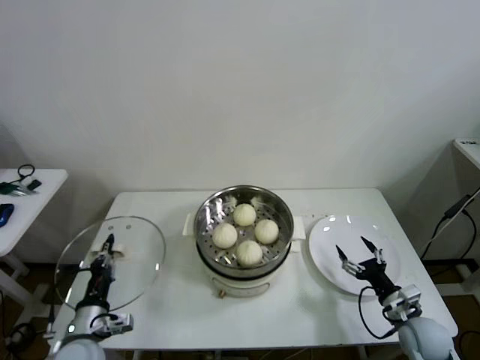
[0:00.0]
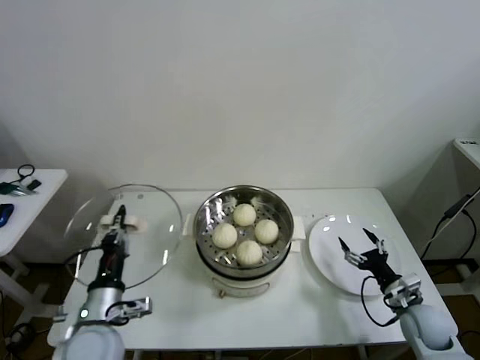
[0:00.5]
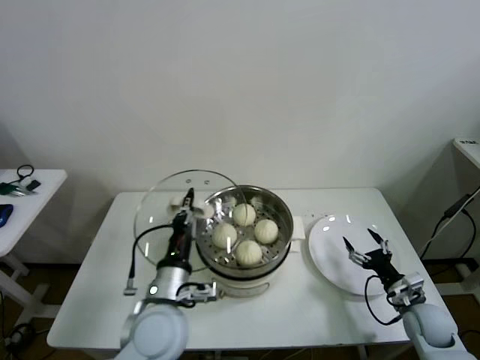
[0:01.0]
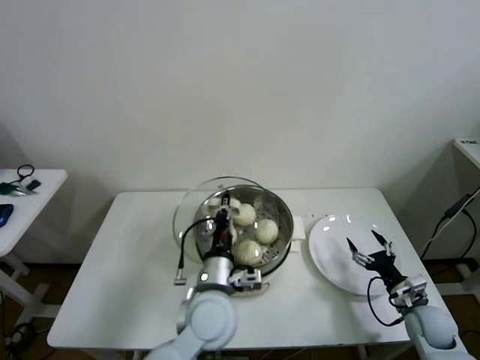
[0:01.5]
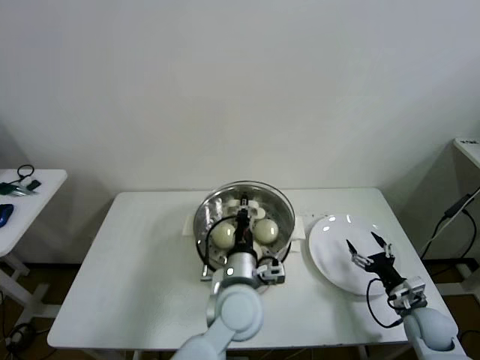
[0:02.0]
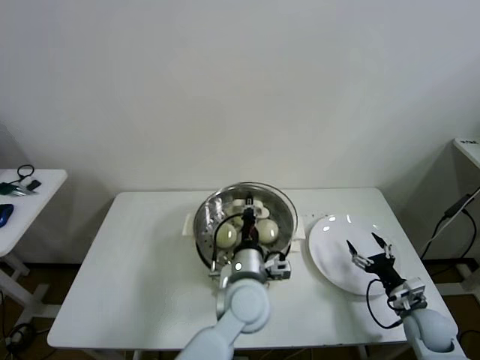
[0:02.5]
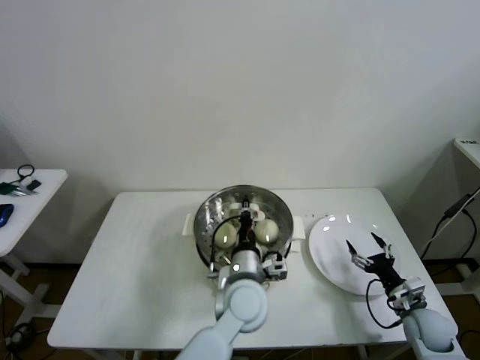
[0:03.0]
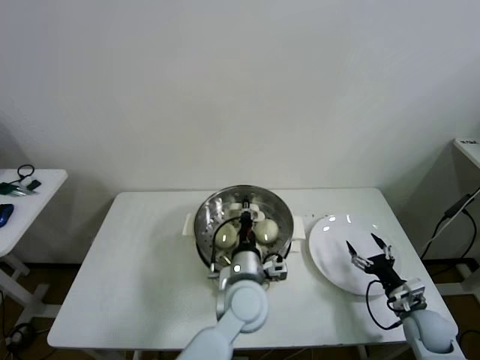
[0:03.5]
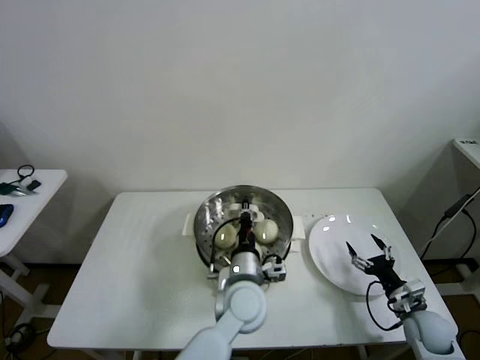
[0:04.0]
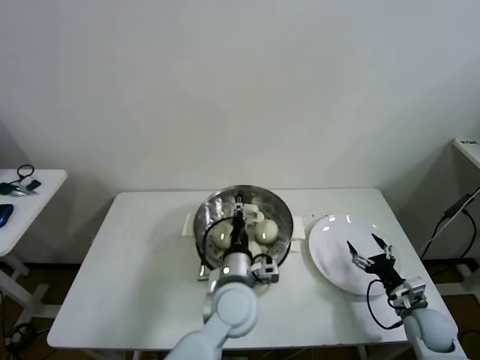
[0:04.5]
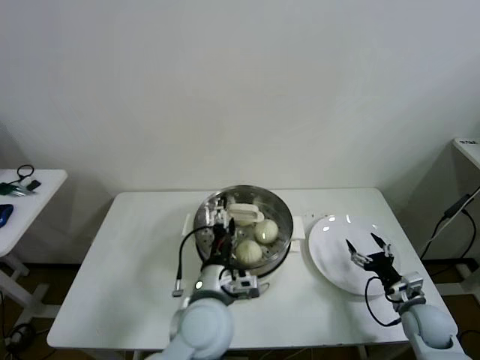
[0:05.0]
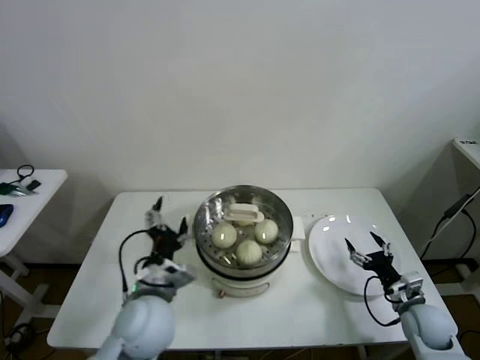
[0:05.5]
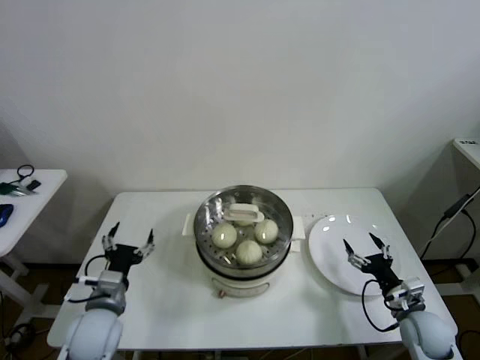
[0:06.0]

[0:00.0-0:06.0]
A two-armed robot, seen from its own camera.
Task of the whole recording: take steamed baozi put them in steamer then cover it.
Step, 0:00.0 to 0:04.5: Place the pot lid on the steamer with left gripper.
0:00.0 to 0:02.0: The left gripper moves to the right, approximately 30 cm.
0:02.0 to 0:04.0: The grippers stay close to where they were, moving slightly.
0:04.0 to 0:06.0: The left gripper heads to the left, covering approximately 30 cm, and opens up.

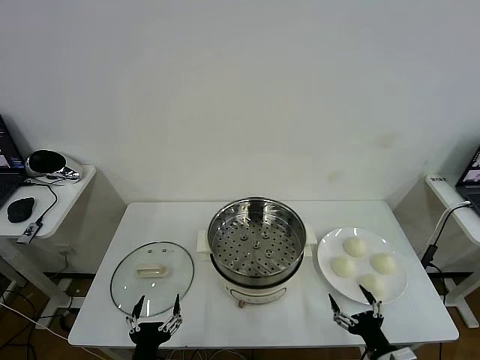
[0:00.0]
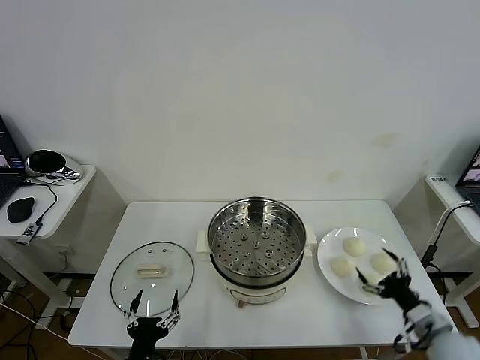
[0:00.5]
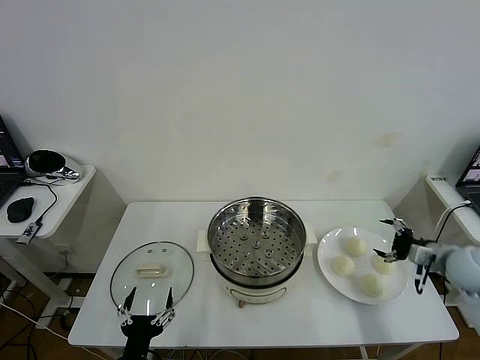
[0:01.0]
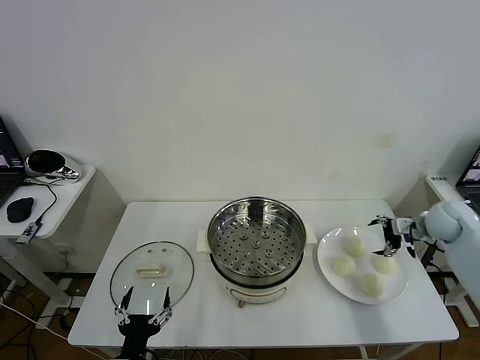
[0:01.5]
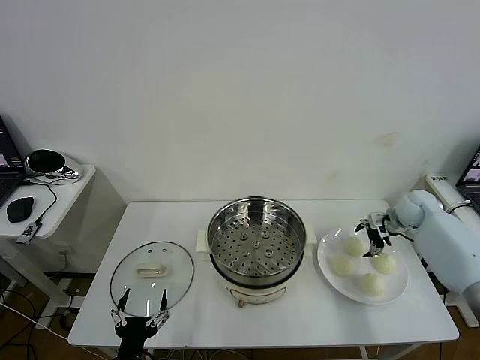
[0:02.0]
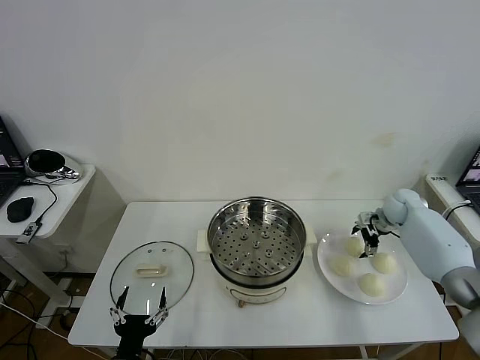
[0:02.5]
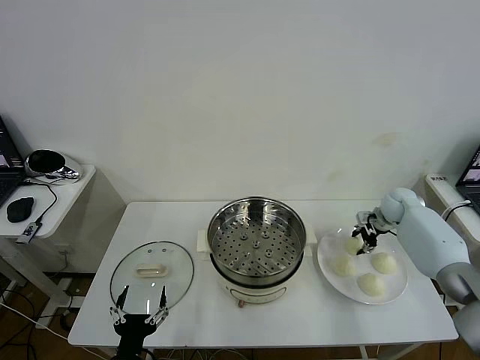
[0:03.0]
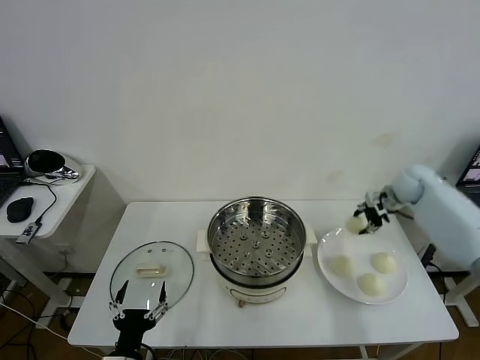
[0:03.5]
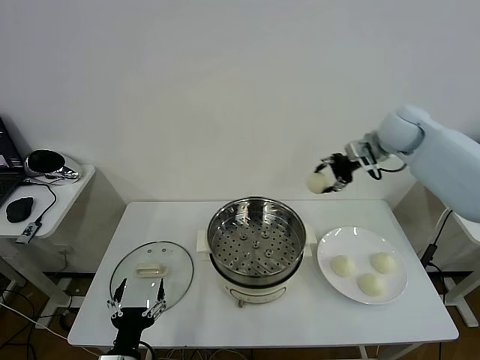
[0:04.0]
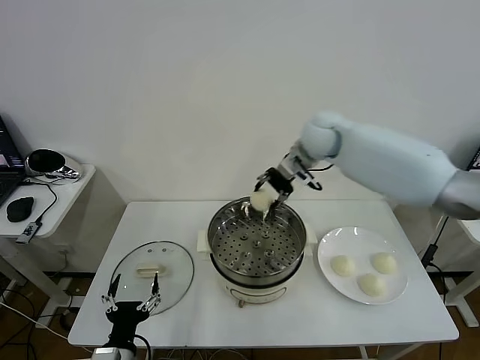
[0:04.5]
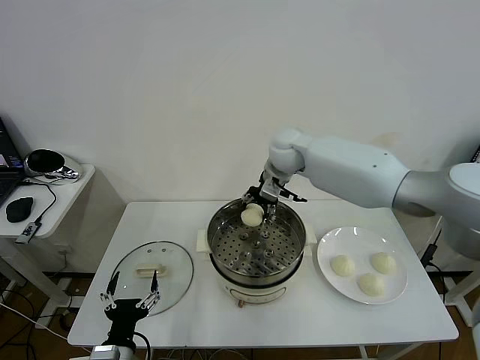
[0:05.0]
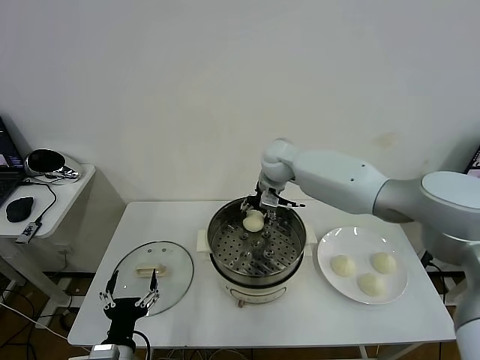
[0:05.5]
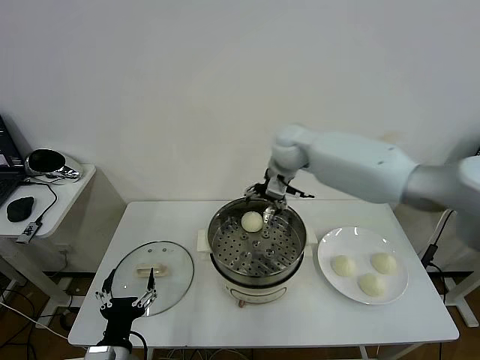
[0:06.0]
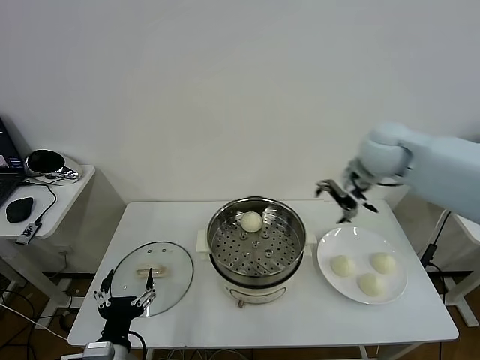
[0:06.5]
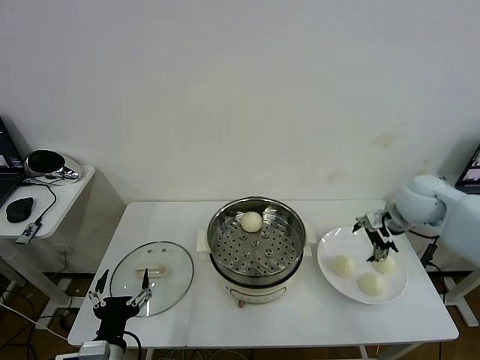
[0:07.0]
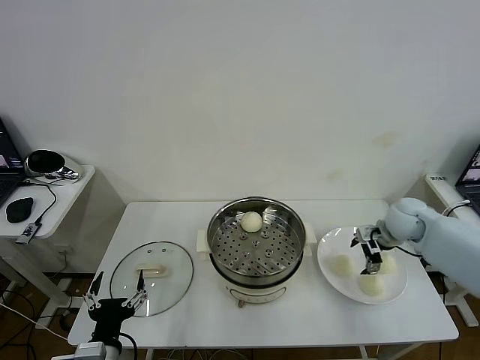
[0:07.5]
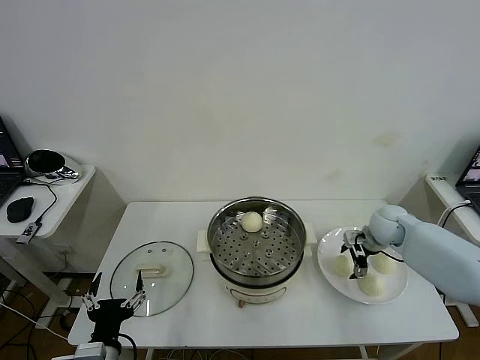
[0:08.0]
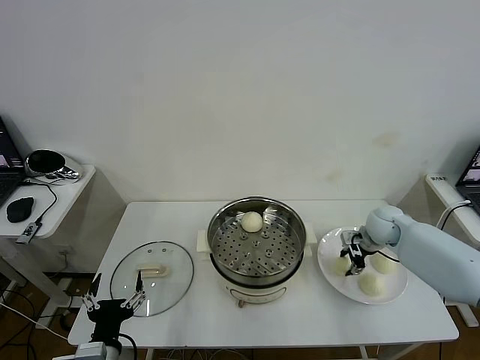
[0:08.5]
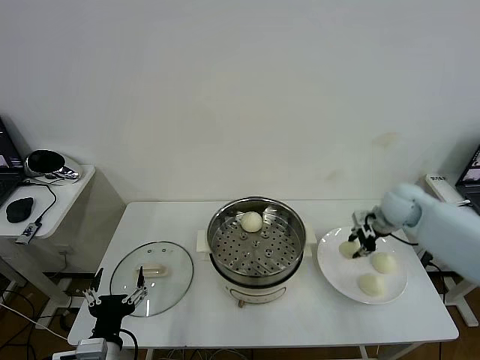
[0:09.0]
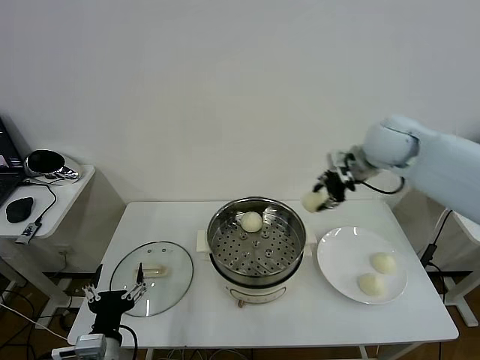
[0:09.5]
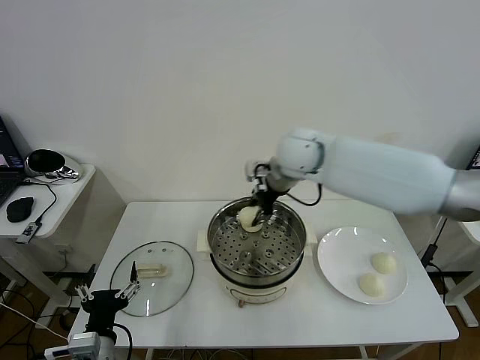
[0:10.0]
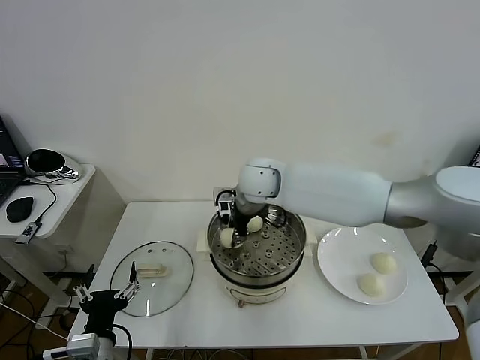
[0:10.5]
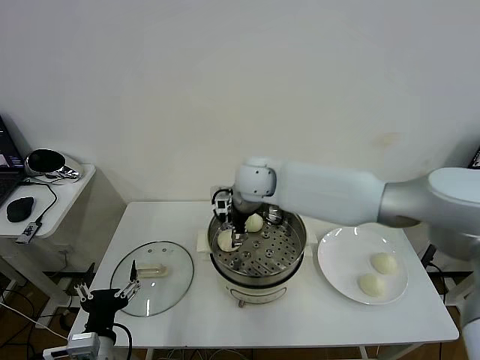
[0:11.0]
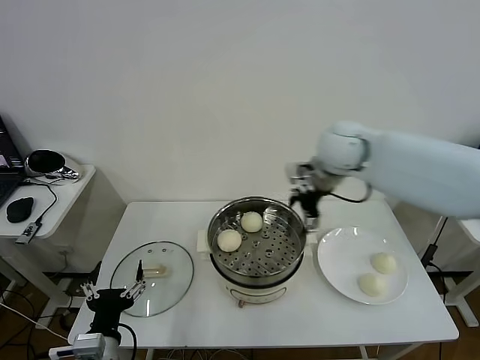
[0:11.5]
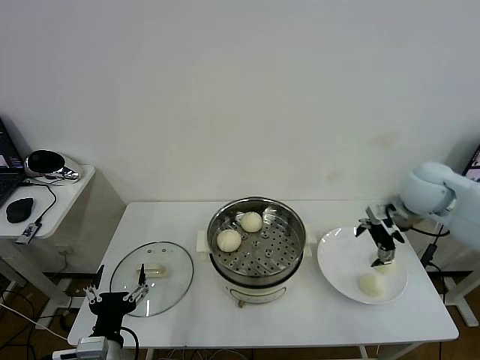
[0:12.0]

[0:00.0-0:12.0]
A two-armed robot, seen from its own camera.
Task of the whole recording: take steamed baozi put them in steamer then cover it.
Step, 0:00.0 to 0:03.0: Grasp the baozi in the plate with right gripper.
Step, 0:03.5 to 0:05.5: Place the baozi on the steamer with right gripper.
Step, 0:06.0 to 0:08.5: Grasp the baozi in the plate with right gripper.
Step, 0:09.0 to 0:11.0: Place the baozi on the steamer with right gripper.
0:02.0 to 0:04.0: The right gripper travels upward and to the left by some 25 cm, and closes.
0:04.0 to 0:06.0: The right gripper shifts about 15 cm to the left, and opens.
0:06.0 to 0:08.0: The right gripper travels to the right and downward by some 30 cm.
0:08.0 to 0:10.0: The right gripper goes some 35 cm to the left and upward, and closes its fingers.
0:10.0 to 0:12.0: The right gripper goes about 25 cm to the right, and opens its fingers.

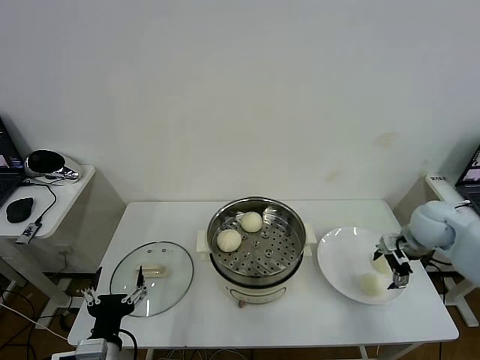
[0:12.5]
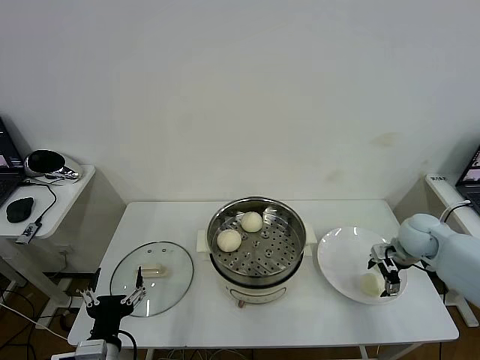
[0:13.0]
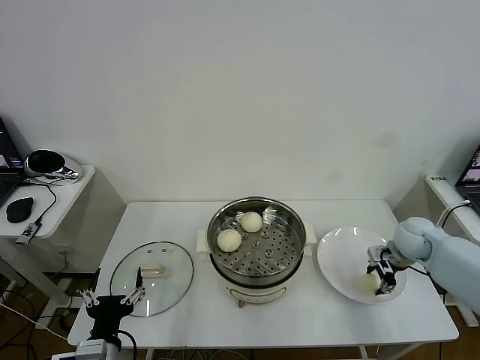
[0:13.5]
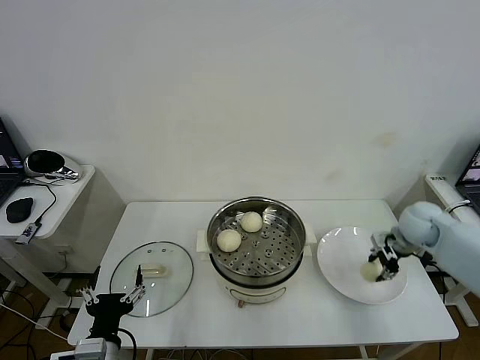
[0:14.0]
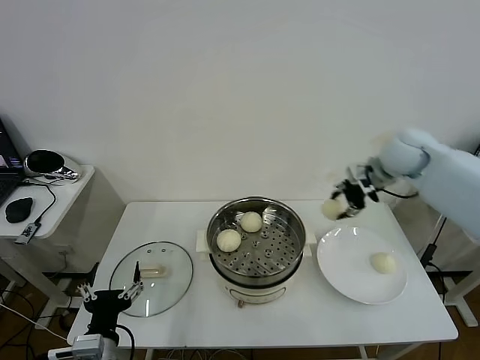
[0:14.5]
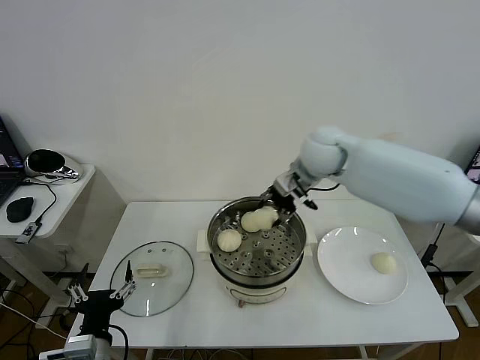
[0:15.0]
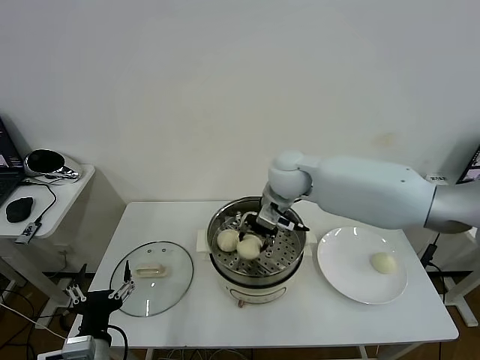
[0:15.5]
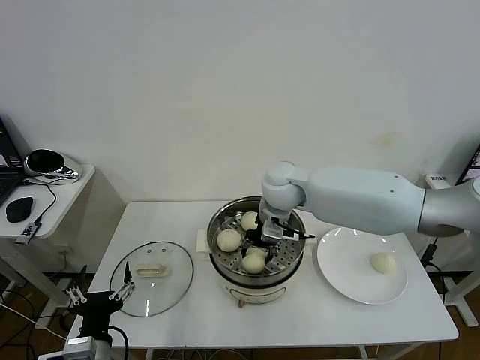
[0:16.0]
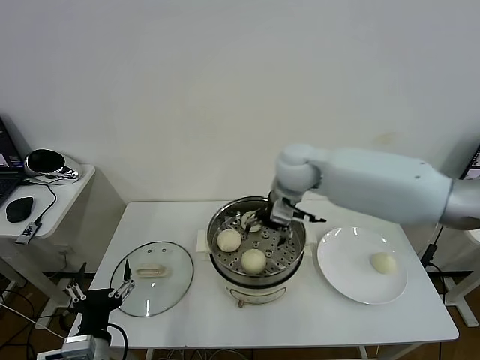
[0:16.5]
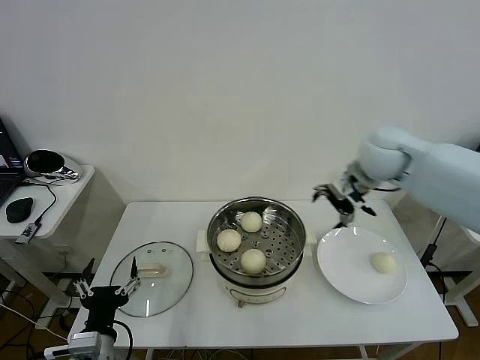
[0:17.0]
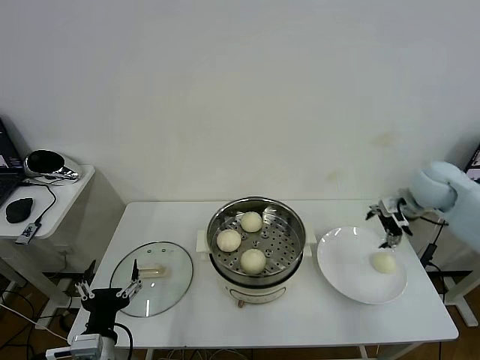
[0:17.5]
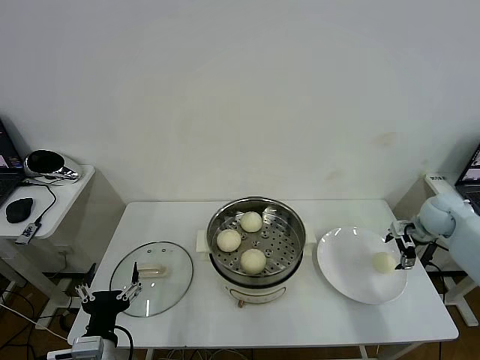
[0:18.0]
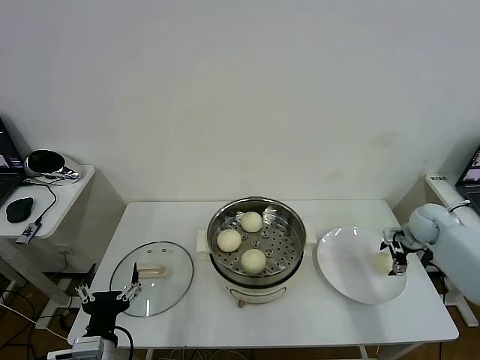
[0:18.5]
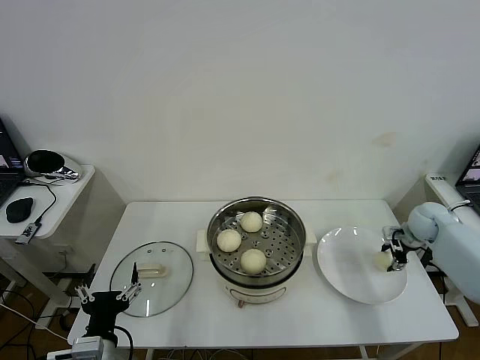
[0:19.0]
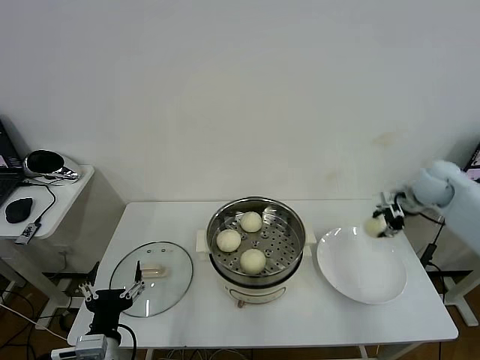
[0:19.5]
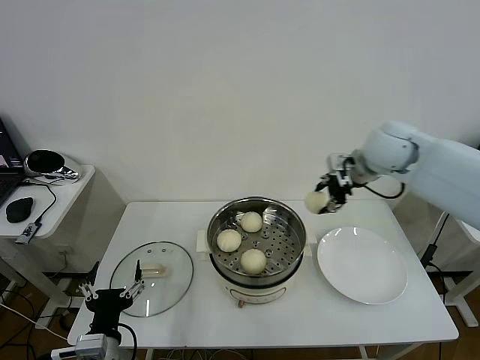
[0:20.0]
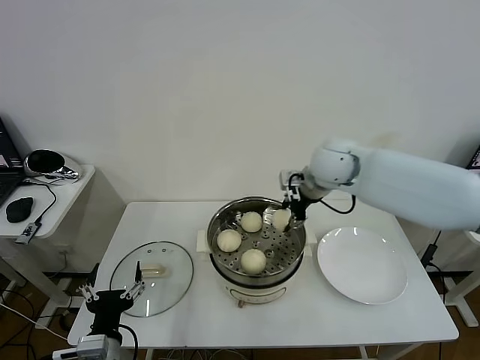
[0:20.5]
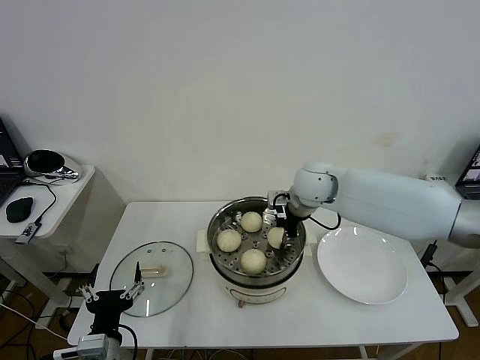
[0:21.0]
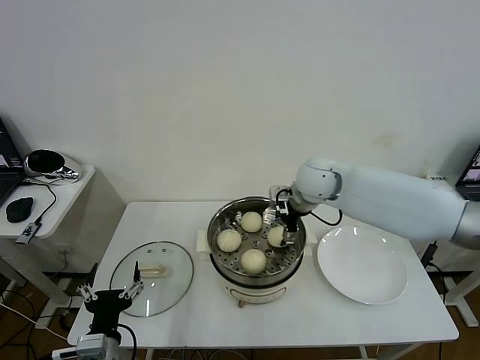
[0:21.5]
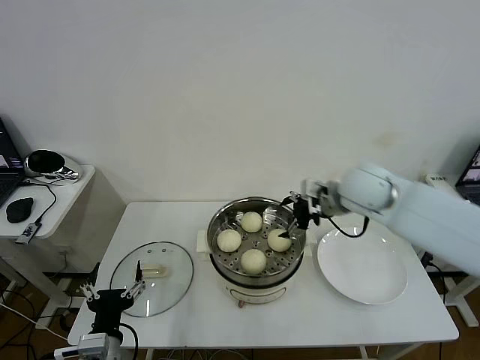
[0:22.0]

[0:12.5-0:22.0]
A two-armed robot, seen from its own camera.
Task of the whole recording: take steamed baozi put them in steamer then cover it.
Step, 0:14.0 to 0:16.0: Place the baozi on the steamer with right gripper.
Step, 0:16.5 to 0:19.0: Grasp the baozi in the plate with right gripper.
Step, 0:19.5 to 0:21.5: Place the baozi on the steamer with right gripper.
0:12.5 to 0:14.5: The right gripper heads upward, to the left and forward, covering approximately 20 cm, and closes.
0:14.5 to 0:16.5: The right gripper shifts some 20 cm to the left, and opens.
0:16.5 to 0:18.0: The right gripper shifts some 35 cm to the right.
0:18.0 to 0:20.0: The right gripper goes some 25 cm to the left and upward, and closes its fingers.
0:20.0 to 0:22.0: The right gripper shifts roughly 10 cm downward, to the left and backward, and opens up.
